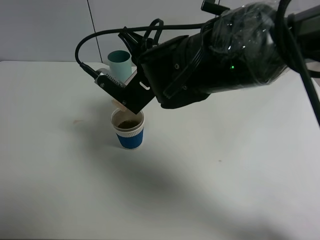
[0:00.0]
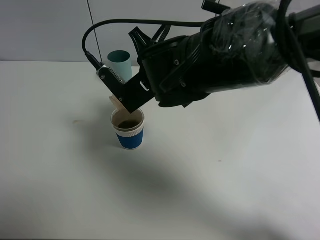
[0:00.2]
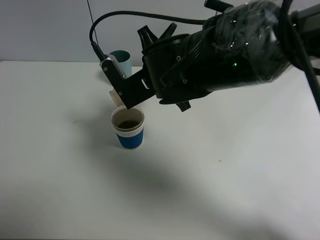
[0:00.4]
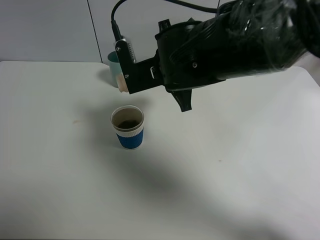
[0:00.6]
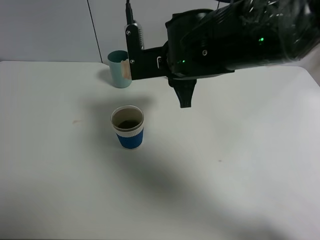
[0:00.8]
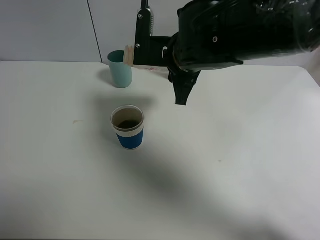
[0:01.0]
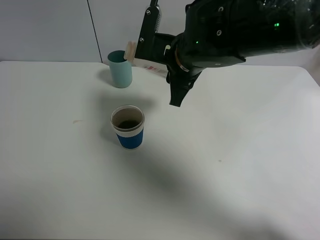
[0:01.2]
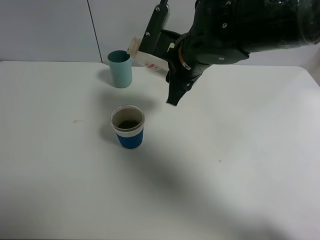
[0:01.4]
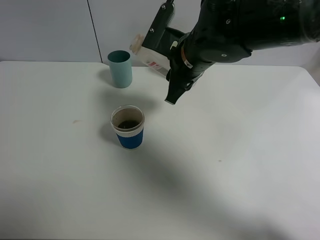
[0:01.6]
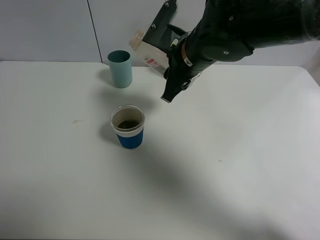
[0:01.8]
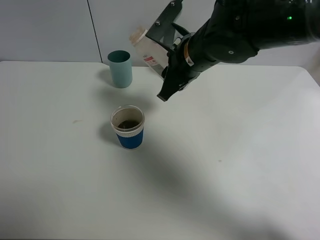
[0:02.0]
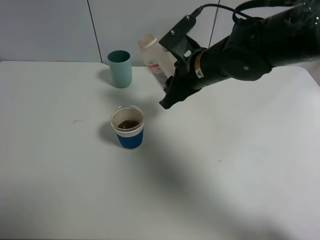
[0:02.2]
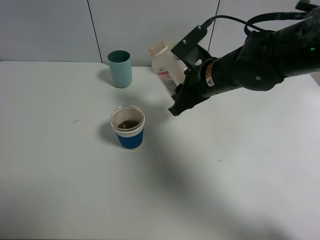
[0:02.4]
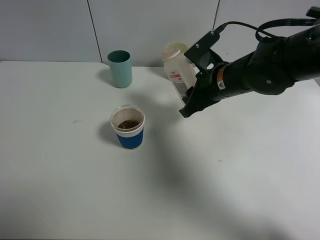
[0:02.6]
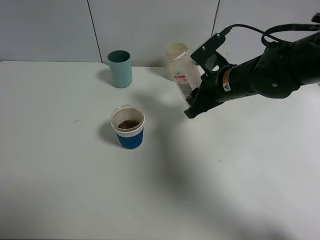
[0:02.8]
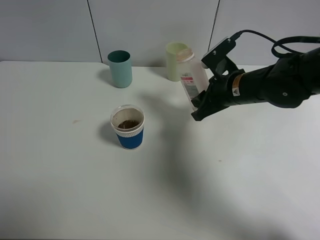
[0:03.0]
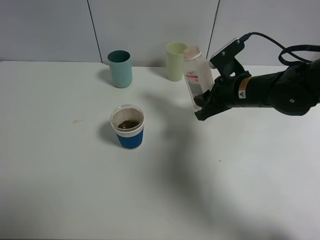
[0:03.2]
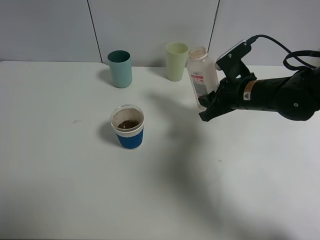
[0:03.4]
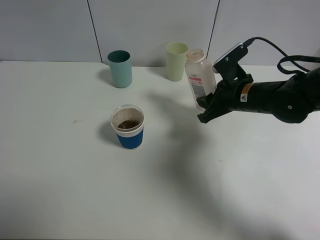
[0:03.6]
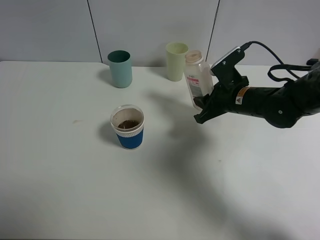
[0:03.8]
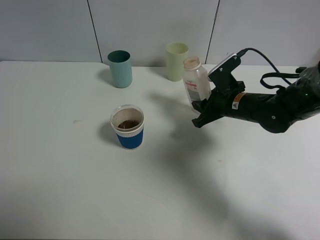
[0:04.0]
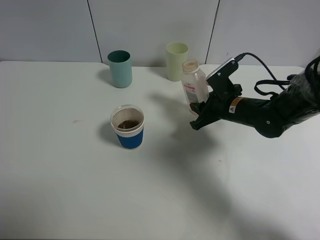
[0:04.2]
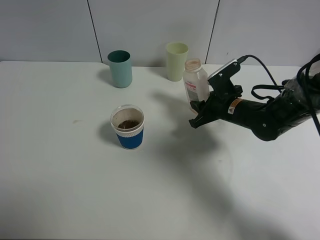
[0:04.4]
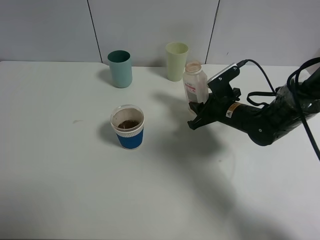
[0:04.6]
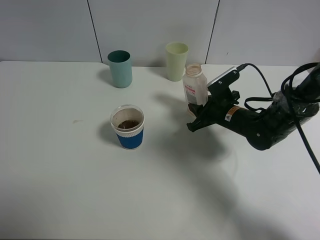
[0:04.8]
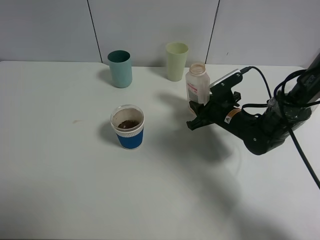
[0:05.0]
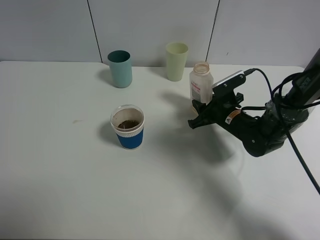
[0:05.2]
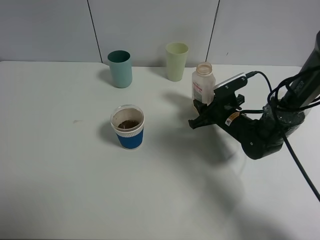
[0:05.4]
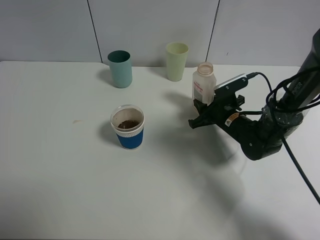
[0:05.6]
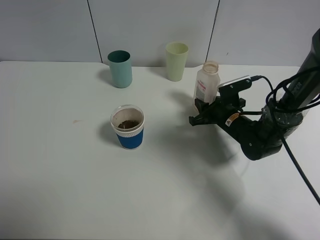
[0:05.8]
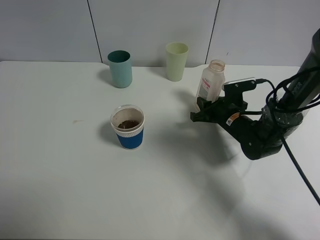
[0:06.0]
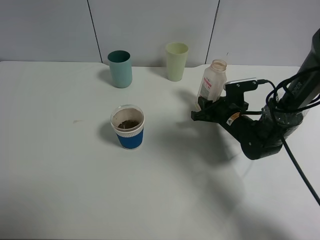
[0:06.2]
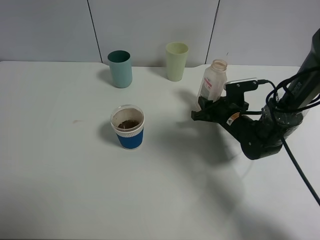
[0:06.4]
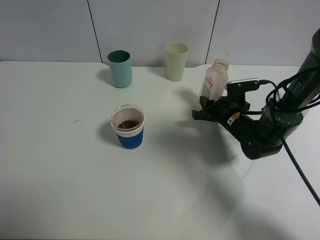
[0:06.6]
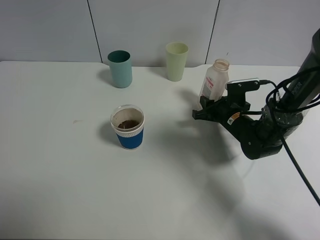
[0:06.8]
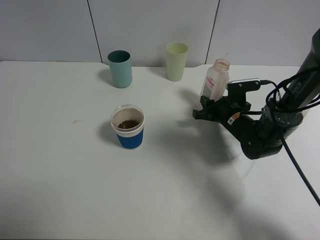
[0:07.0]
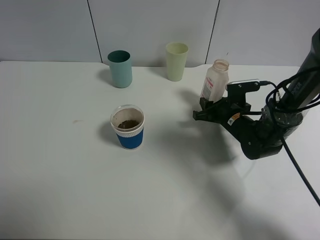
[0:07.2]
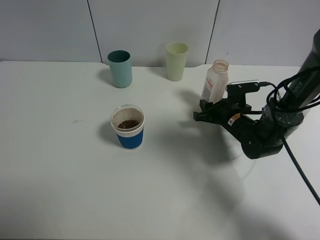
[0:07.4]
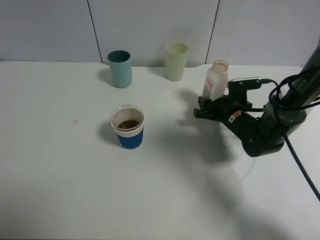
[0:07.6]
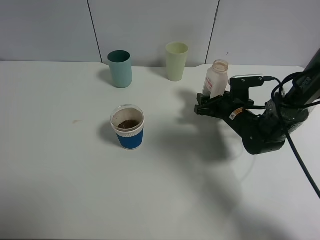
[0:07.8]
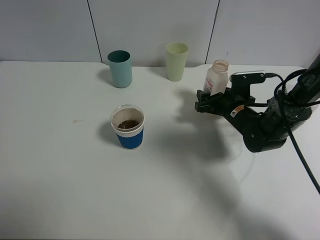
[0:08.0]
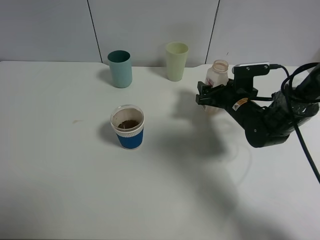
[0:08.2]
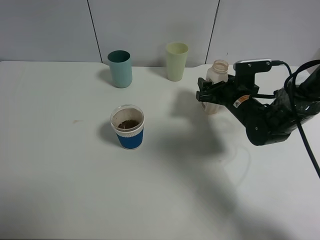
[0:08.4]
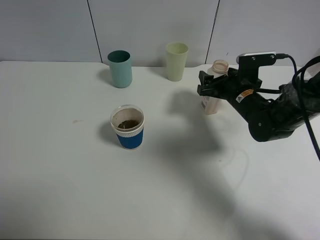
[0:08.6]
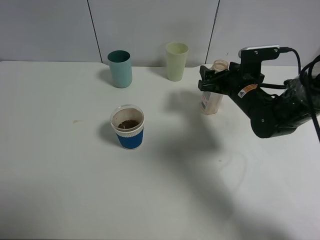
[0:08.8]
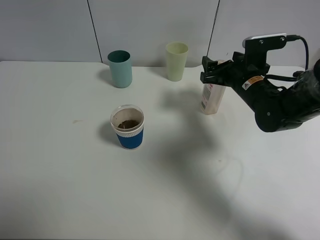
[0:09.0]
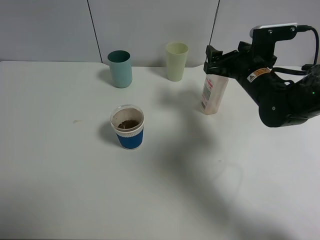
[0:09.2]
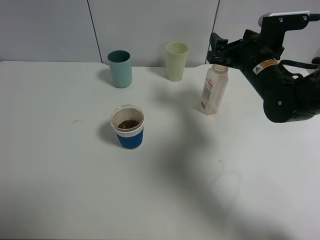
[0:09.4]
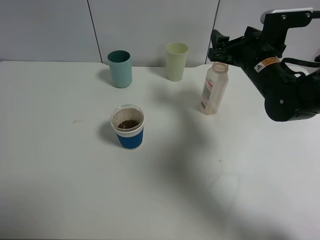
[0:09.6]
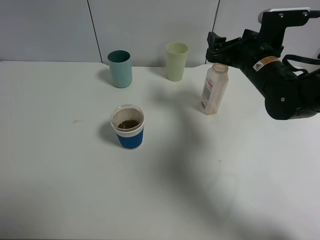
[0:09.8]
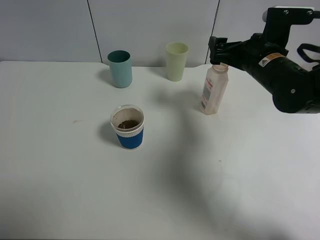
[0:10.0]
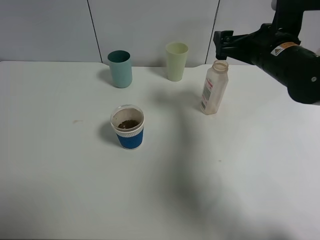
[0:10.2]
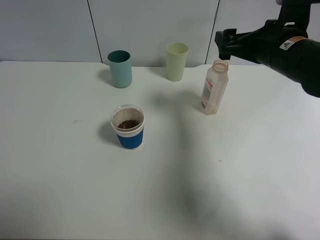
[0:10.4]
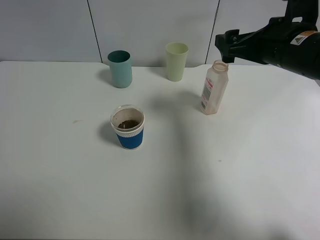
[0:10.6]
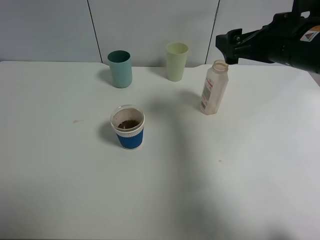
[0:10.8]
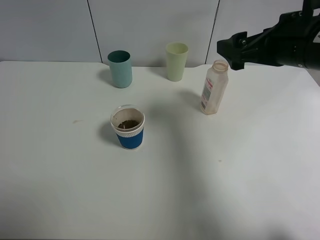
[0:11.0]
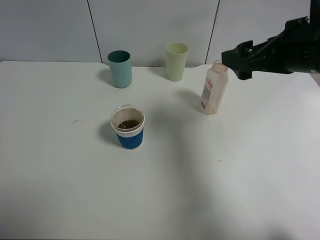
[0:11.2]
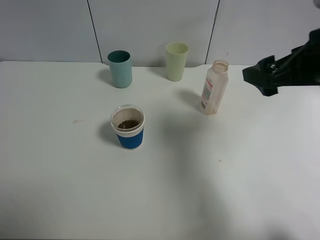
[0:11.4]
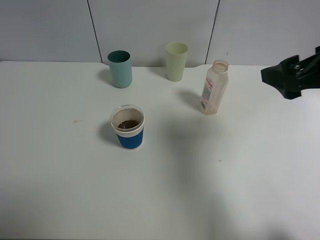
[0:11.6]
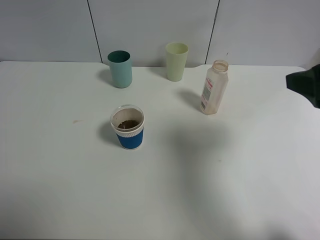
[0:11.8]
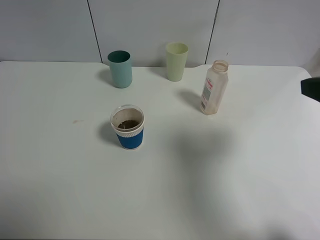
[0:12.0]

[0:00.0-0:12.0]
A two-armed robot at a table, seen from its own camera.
Task of the whole recording: use a clamp to hold the bottle of the drink, pour the beverage into a random cup, then clamp the cup containing the drink and pour the drink into another random cup.
Step, 0:01.2 to 0:09.0: Place the drink bottle on the table with right gripper.
0:00.0 to 0:01.6: The right gripper is displaced to the right by about 5 cm.
0:01.6 to 0:03.0: The right gripper shifts approximately 10 cm to the right and downward.
0:03.0 to 0:04.4: The right gripper travels downward by some 5 cm.
0:06.0 to 0:07.6: The grippers make only small movements.
0:07.6 to 0:09.0: The right gripper shifts roughly 10 cm upward.
0:09.0 to 0:10.4: The right gripper heads upward, covering approximately 10 cm.
0:10.4 to 0:12.0: The right gripper travels backward and upward by roughly 20 cm.

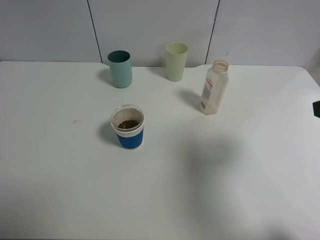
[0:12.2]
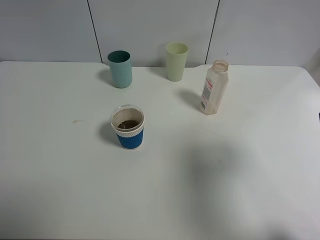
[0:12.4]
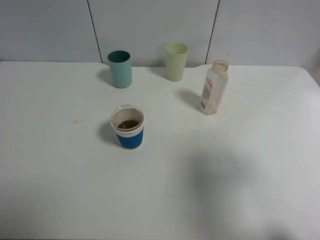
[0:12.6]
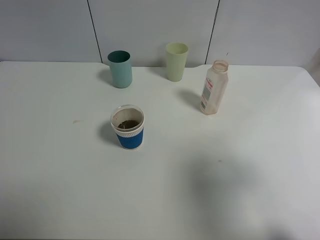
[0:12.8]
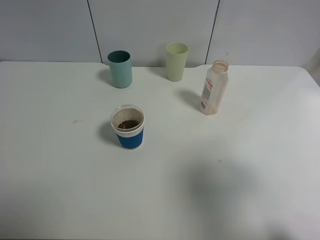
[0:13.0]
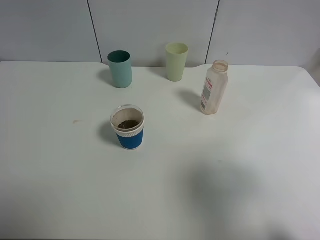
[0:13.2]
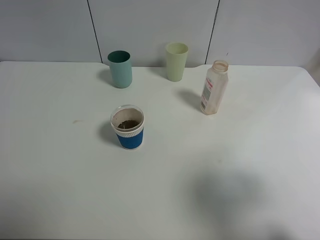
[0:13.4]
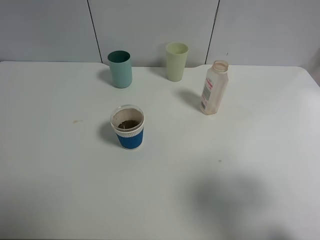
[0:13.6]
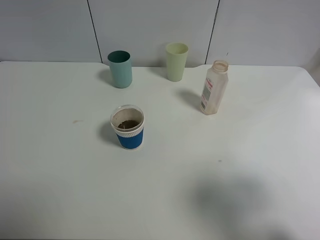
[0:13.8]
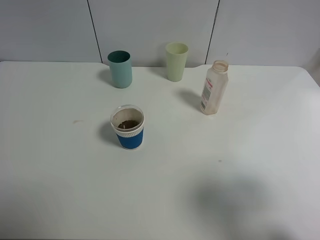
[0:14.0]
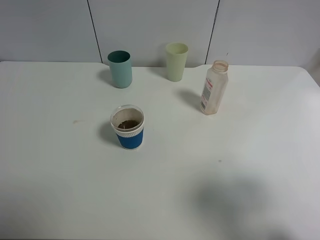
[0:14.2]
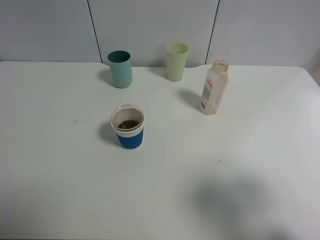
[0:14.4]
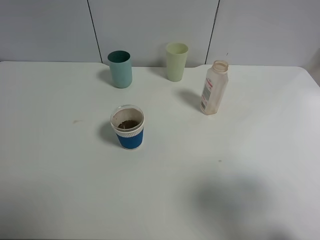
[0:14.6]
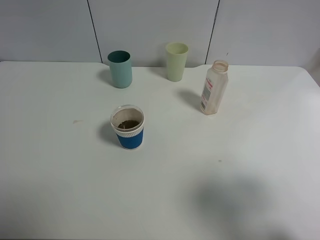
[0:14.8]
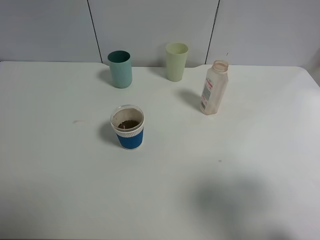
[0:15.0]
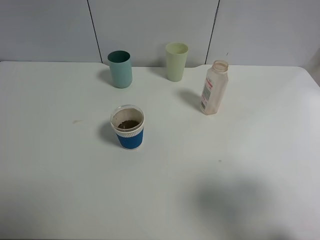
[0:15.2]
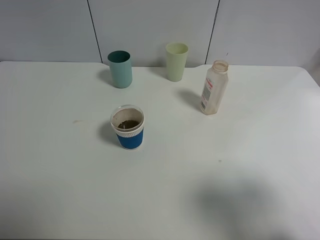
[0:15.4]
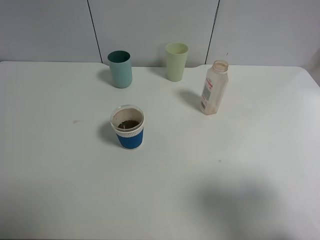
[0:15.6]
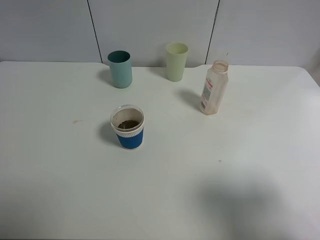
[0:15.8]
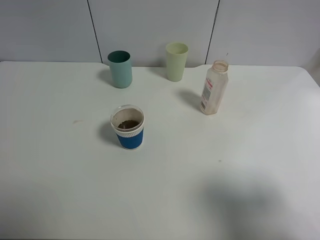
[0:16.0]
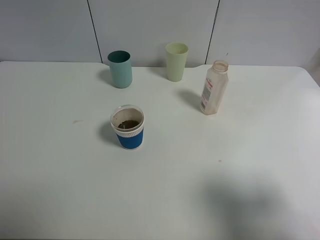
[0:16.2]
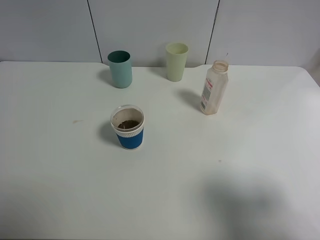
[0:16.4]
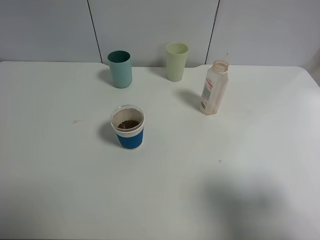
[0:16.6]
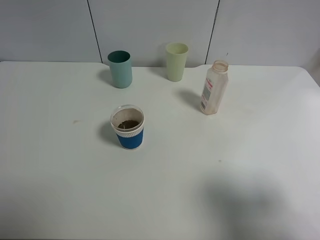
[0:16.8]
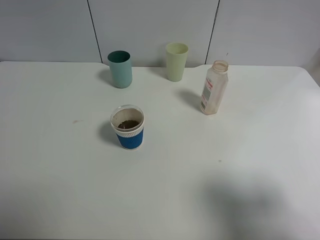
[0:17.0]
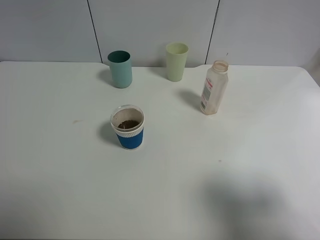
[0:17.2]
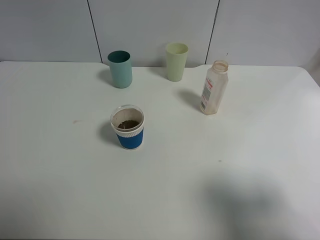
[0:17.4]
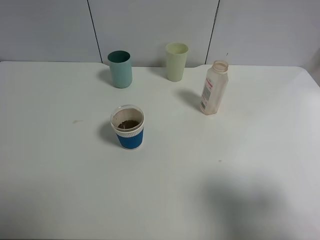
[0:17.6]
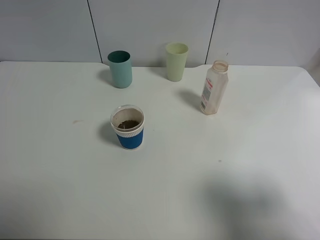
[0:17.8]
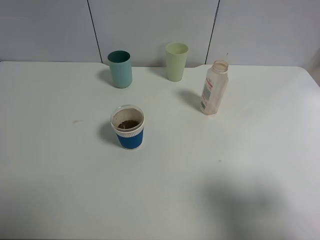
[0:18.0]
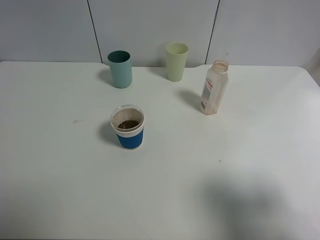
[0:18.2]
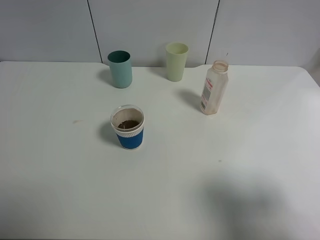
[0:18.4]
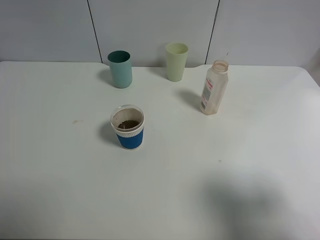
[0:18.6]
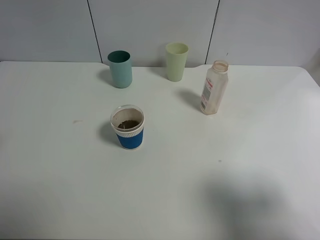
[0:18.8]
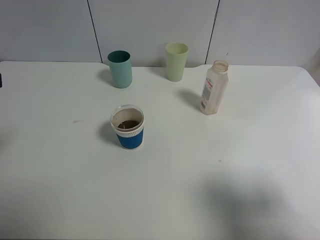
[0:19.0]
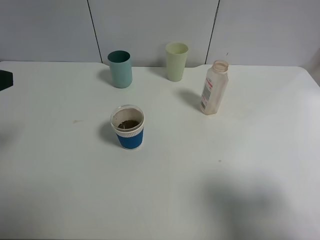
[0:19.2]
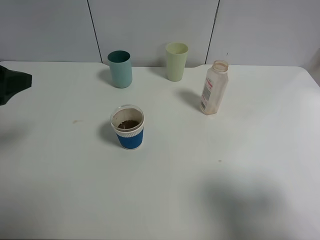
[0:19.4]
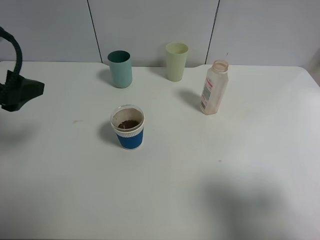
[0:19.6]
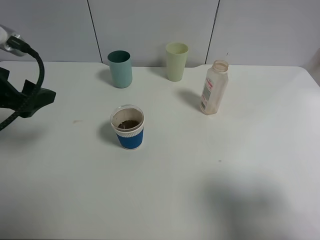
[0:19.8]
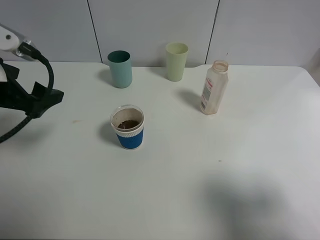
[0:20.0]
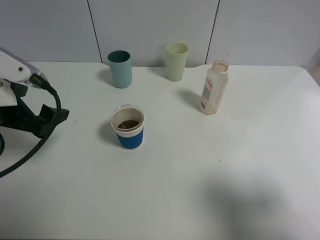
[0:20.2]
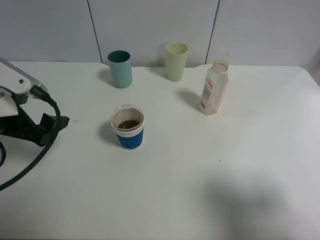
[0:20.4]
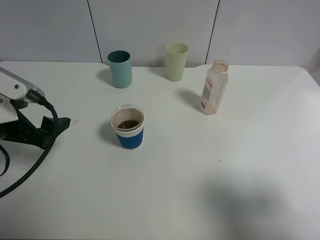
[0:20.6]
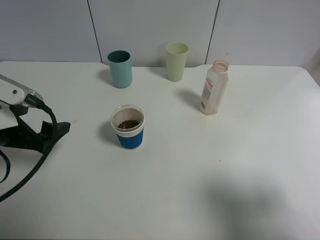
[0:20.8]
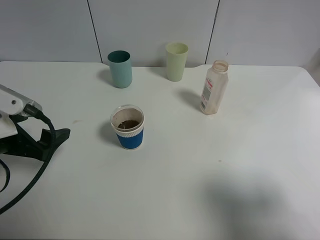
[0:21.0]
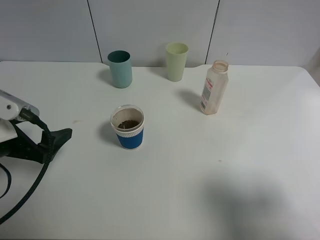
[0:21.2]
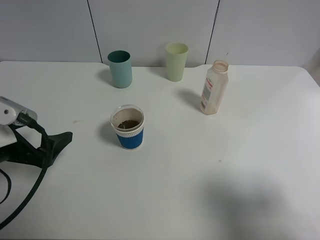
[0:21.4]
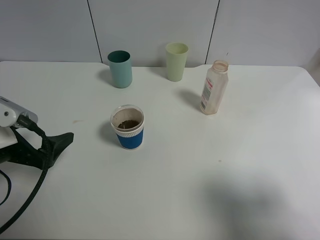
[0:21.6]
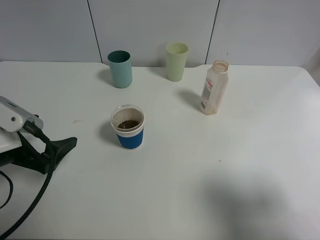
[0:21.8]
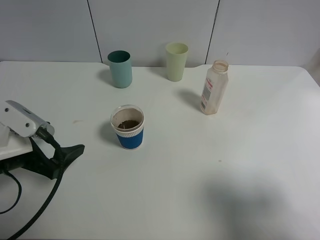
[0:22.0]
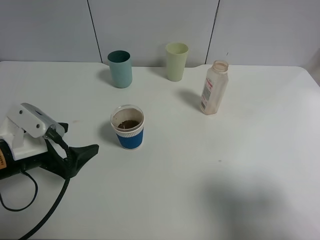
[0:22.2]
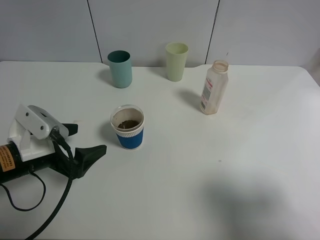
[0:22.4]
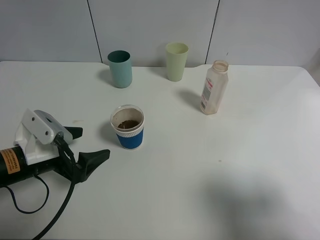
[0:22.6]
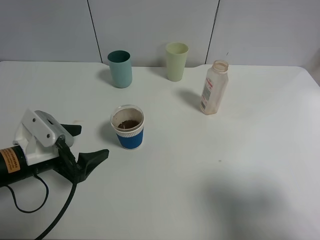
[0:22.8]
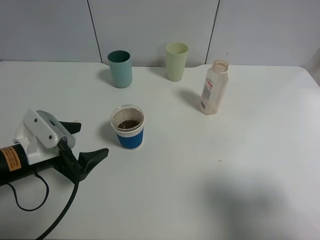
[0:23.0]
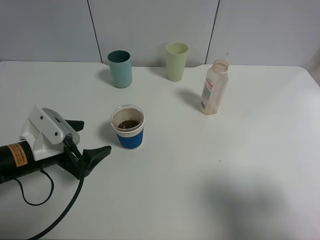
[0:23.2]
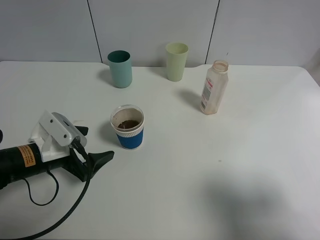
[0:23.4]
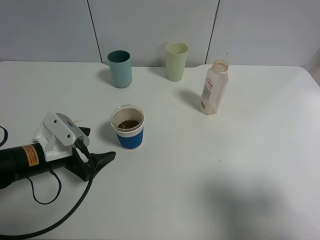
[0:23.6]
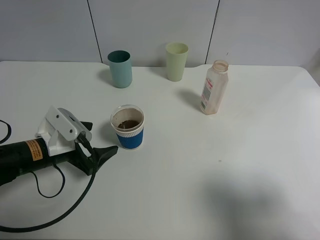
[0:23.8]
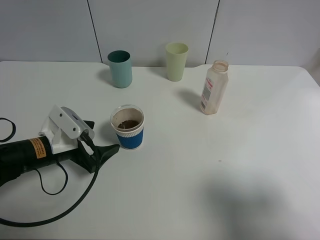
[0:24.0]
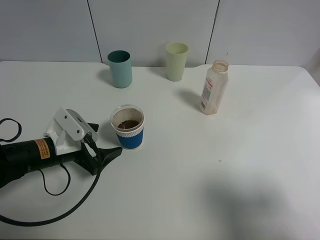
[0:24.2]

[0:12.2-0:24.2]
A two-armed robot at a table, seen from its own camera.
Task of the whole recording: use a clamp to hold the bottle of the drink, pour the beverage into a random cup, then clamp the cup containing the drink and pour the drink into another random cup.
0:12.2 to 0:13.8: The right gripper moves backward, roughly 10 cm.
0:13.8 to 0:15.2: Both grippers stay about where they are.
0:18.2 to 0:19.8: The left gripper heads forward, covering some 20 cm.
0:19.8 to 0:21.2: The left gripper is displaced downward by roughly 10 cm.
0:21.2 to 0:22.6: The left gripper is displaced downward by approximately 5 cm.
0:22.6 to 0:24.2: The left gripper ends up approximately 5 cm from where it was.
